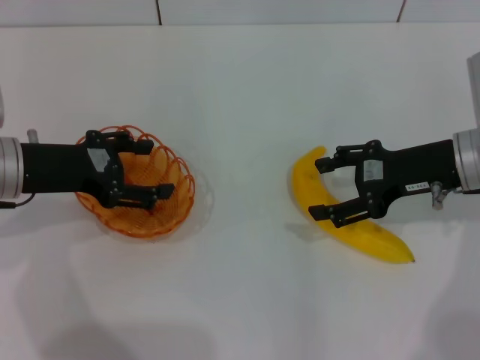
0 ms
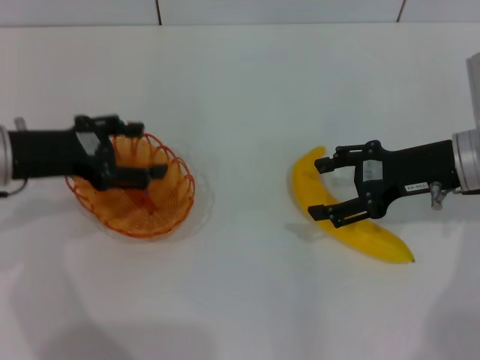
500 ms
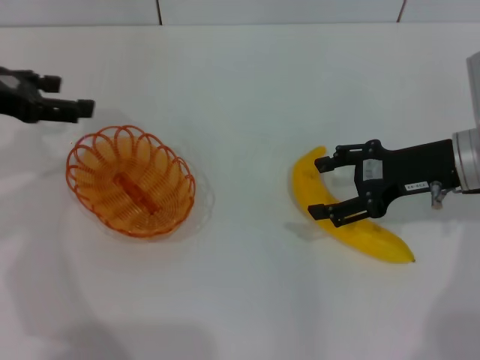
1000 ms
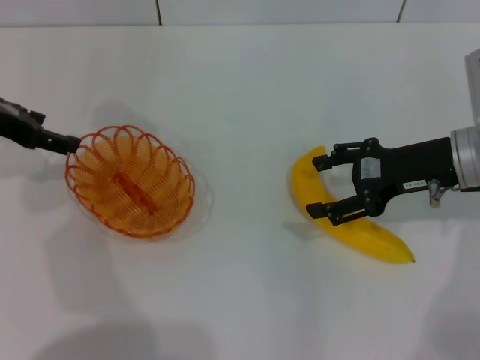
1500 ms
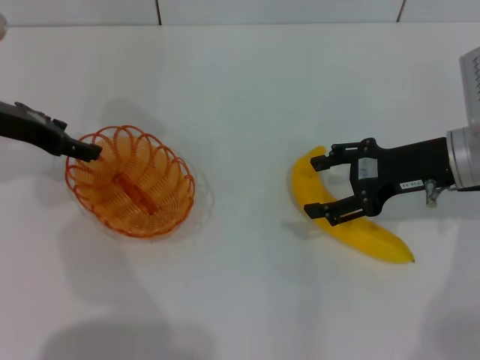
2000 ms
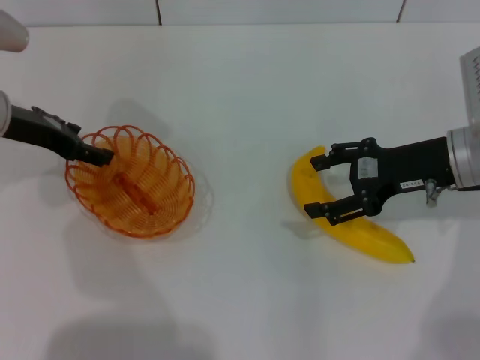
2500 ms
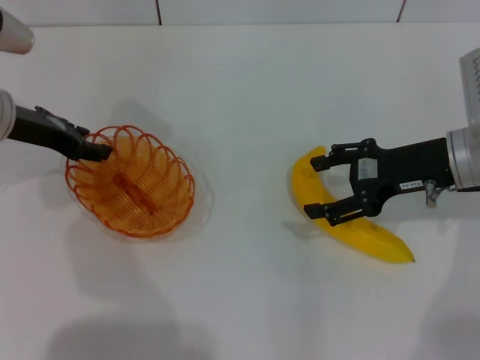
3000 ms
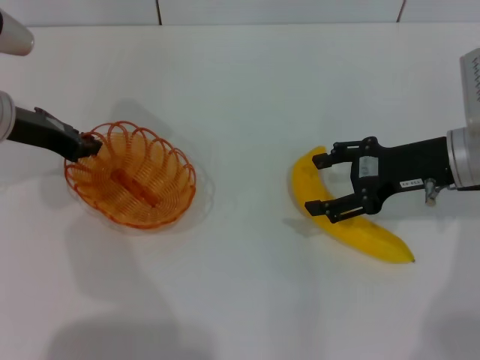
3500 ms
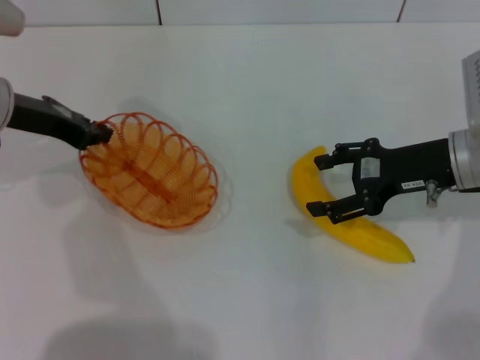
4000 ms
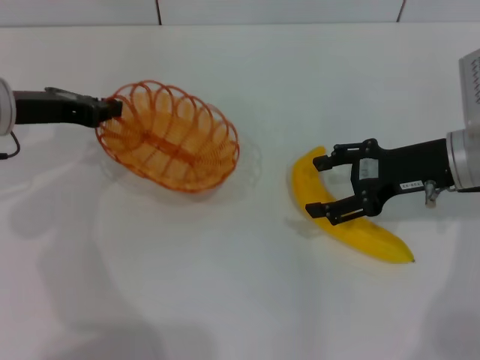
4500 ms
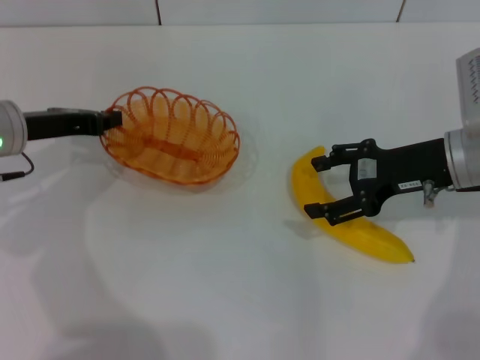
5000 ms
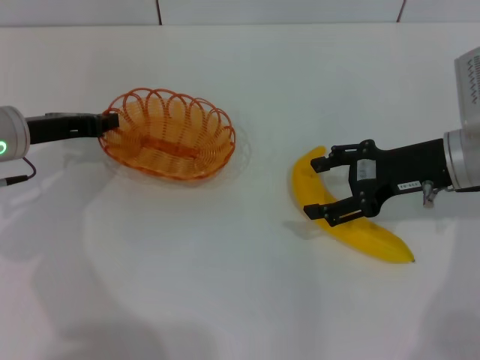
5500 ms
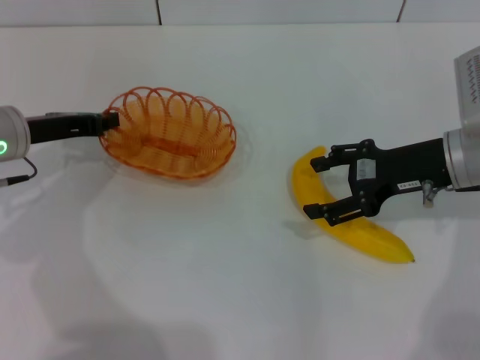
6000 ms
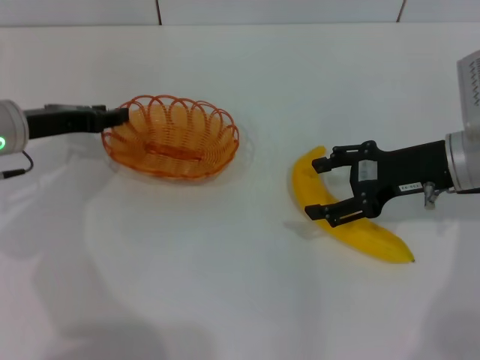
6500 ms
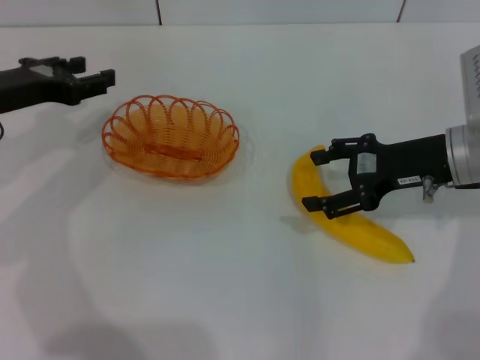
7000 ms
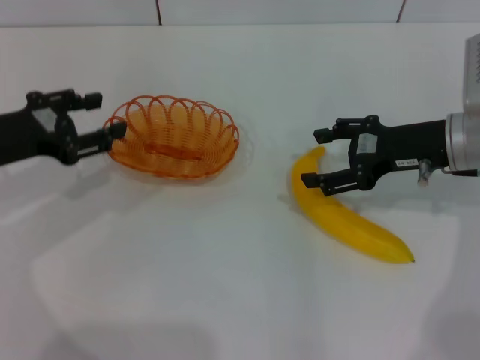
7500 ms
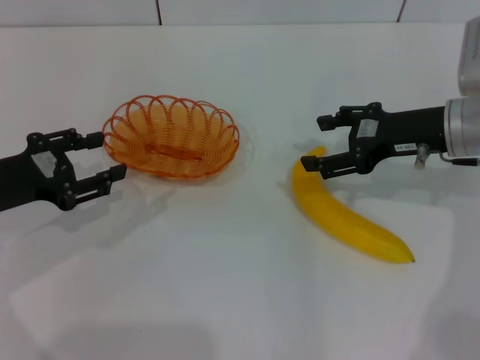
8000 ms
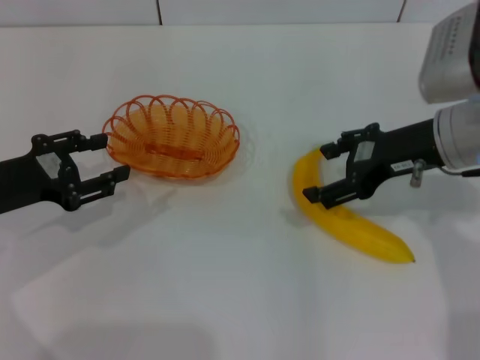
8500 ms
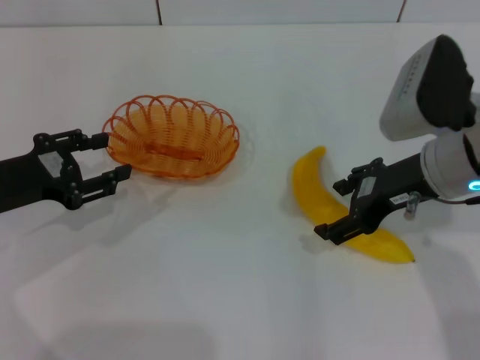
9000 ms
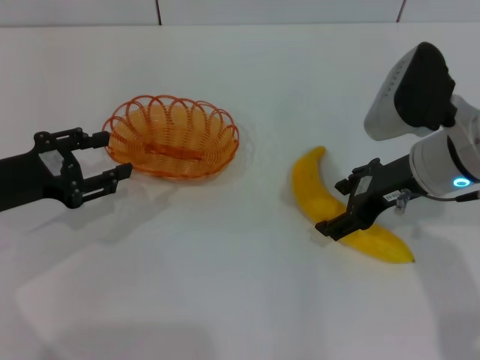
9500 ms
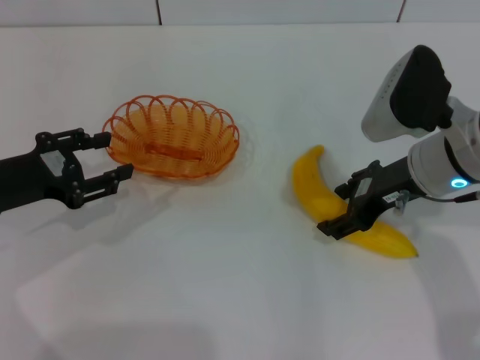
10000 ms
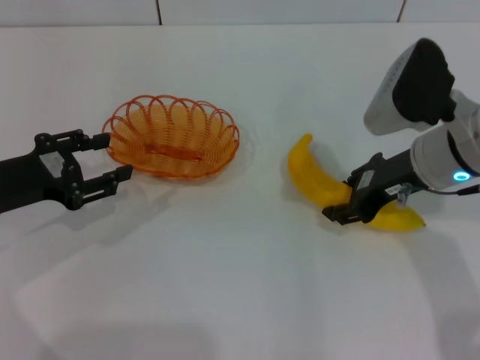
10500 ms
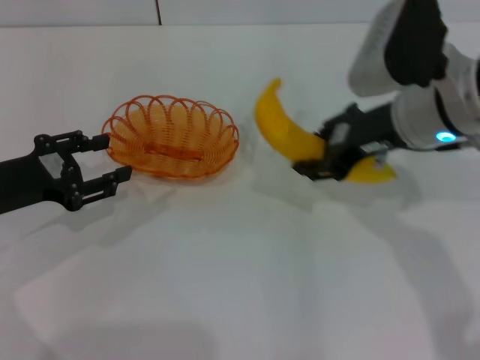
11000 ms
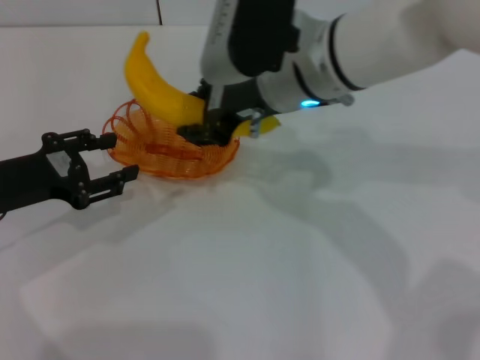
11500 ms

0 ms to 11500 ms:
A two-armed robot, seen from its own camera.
Step, 0 ms to 4000 ms: Pick up the basket with the left gripper.
Step, 4500 ms to 6500 ms: Place the basket in the center of view with the left gripper.
Step, 7500 ms to 10500 ms: Pick up the banana with the right gripper.
0 ms to 2000 ms: The left gripper moves forward, approximately 5 cm.
2000 ms to 4000 ms: The left gripper closes its fingers.
4000 ms to 6000 ms: The left gripper goes approximately 5 cm downward.
6000 ms to 7500 ms: The left gripper shifts about 5 cm backward, and opens up.
7500 ms to 9500 ms: The right gripper moves to the left, some 5 cm.
9500 ms to 11500 ms: The right gripper goes some 15 cm to the left and upward, and closes.

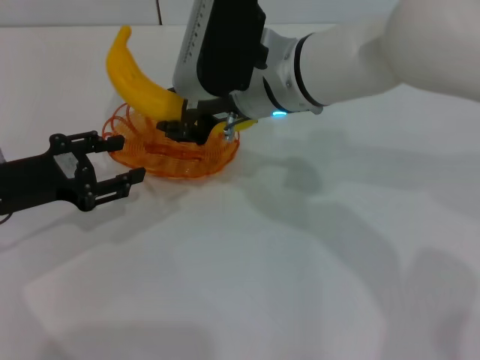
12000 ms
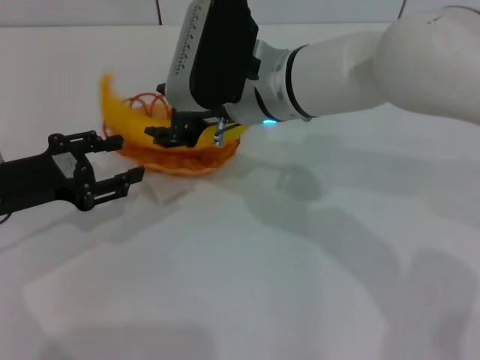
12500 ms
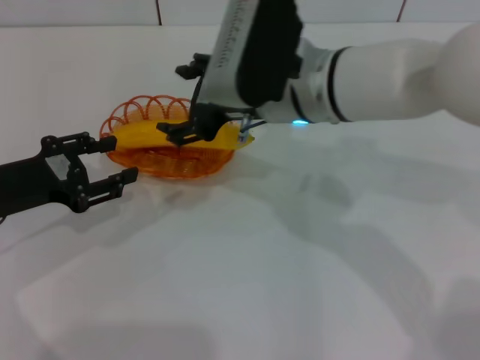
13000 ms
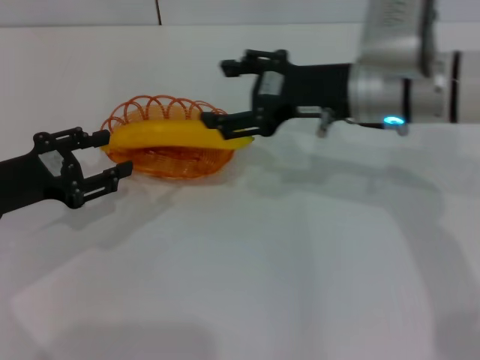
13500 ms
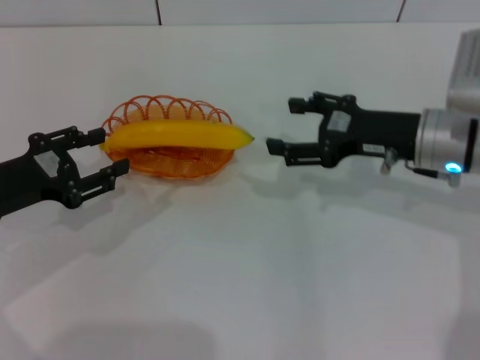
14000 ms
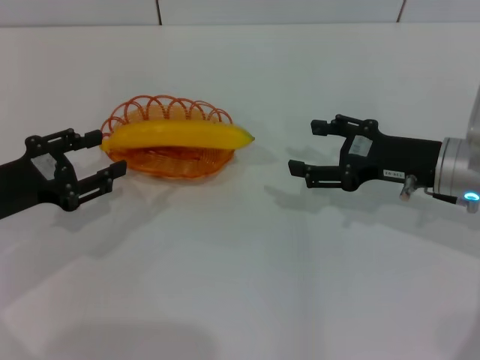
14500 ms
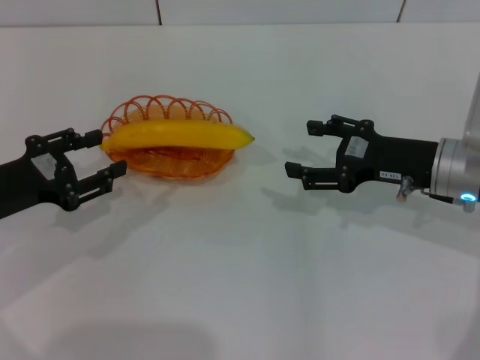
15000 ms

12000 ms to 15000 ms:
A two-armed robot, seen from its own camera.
Step, 12000 ms to 13500 ms: Place the banana into the basket with the right gripper.
12000 ms to 13500 ms: The right gripper moves to the right, approximately 10 cm, and opens.
13500 ms to 15000 ms: The right gripper moves to the right and downward, roughly 10 cm.
